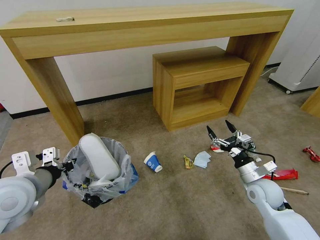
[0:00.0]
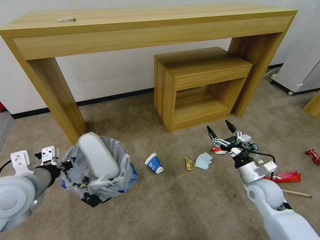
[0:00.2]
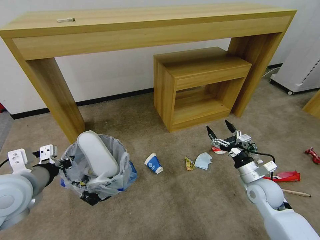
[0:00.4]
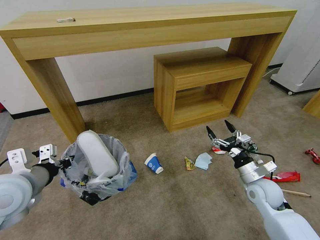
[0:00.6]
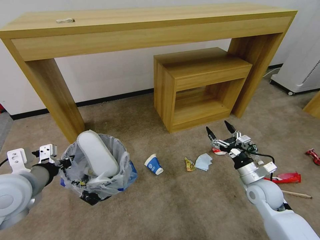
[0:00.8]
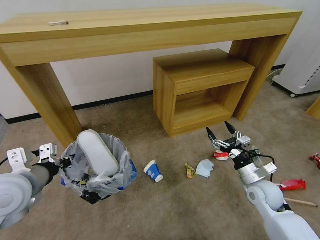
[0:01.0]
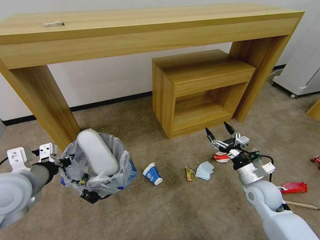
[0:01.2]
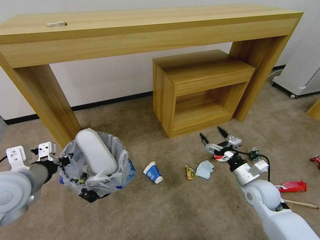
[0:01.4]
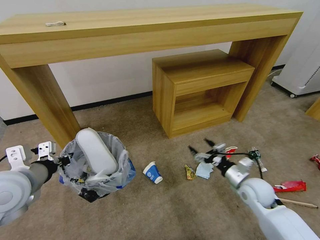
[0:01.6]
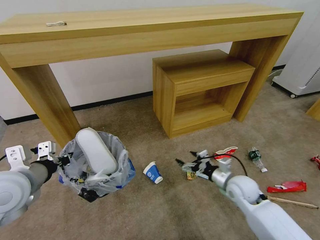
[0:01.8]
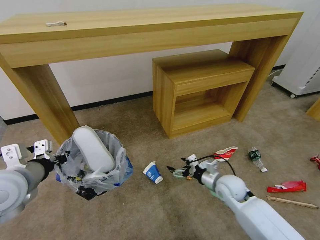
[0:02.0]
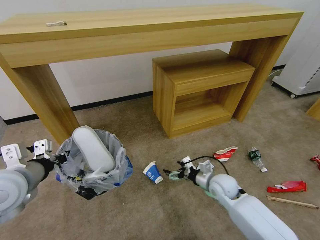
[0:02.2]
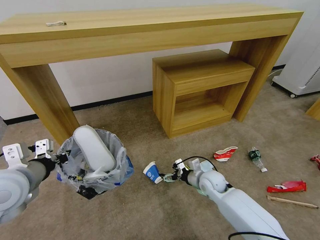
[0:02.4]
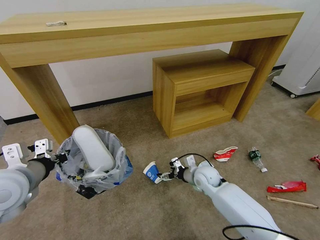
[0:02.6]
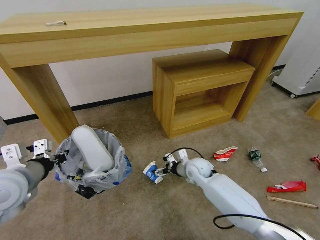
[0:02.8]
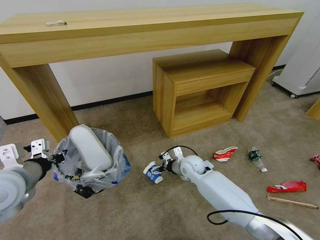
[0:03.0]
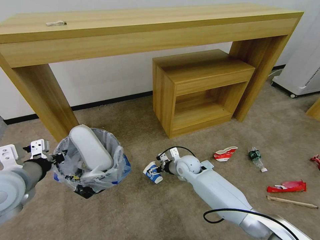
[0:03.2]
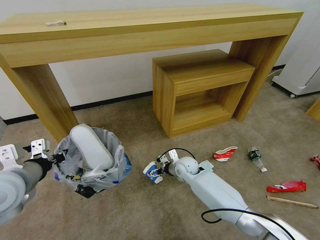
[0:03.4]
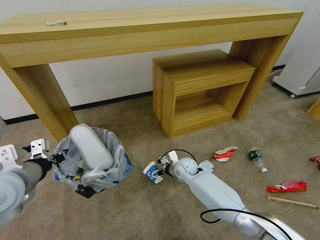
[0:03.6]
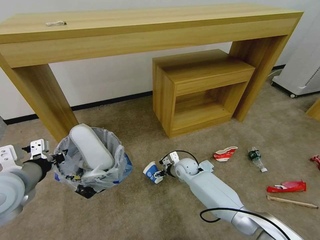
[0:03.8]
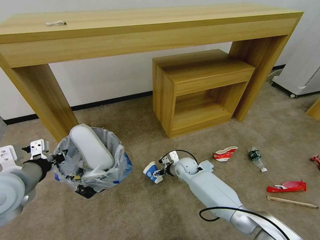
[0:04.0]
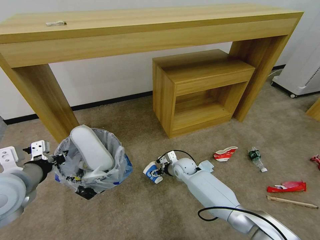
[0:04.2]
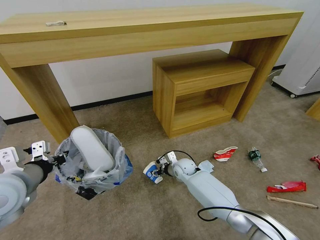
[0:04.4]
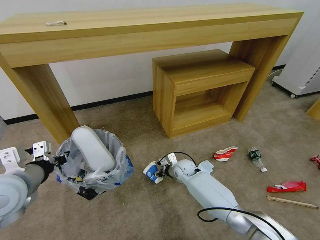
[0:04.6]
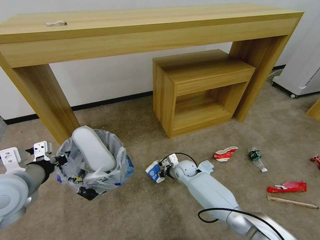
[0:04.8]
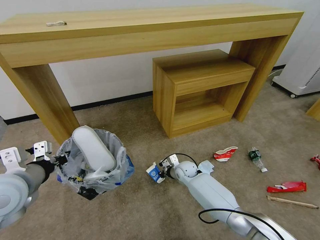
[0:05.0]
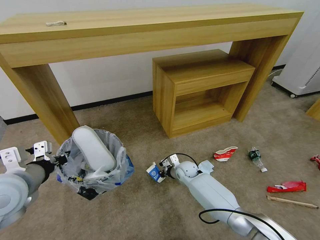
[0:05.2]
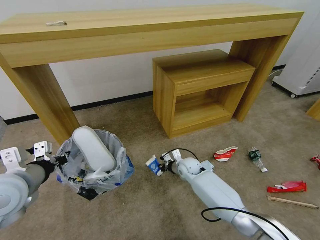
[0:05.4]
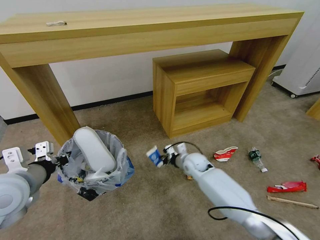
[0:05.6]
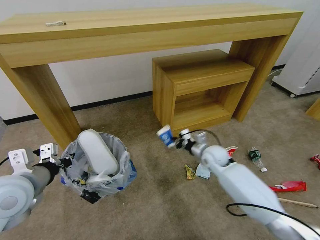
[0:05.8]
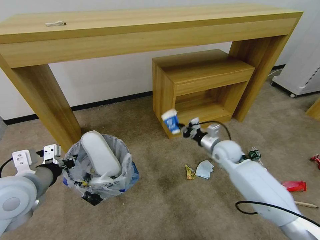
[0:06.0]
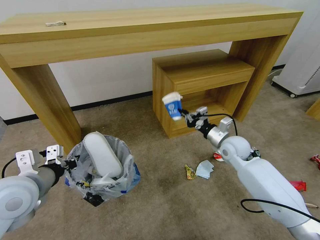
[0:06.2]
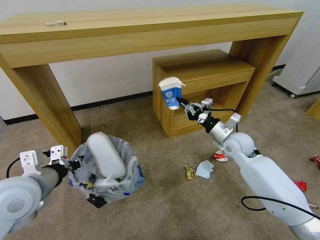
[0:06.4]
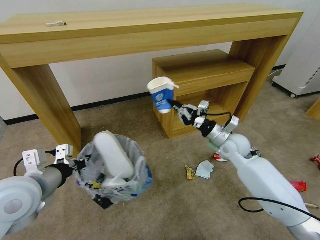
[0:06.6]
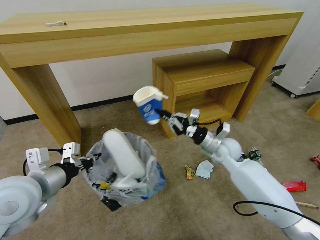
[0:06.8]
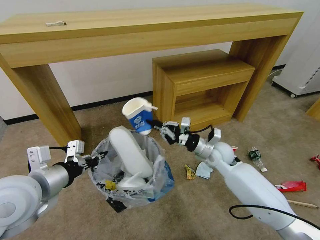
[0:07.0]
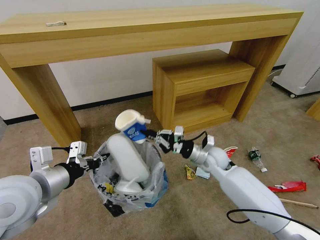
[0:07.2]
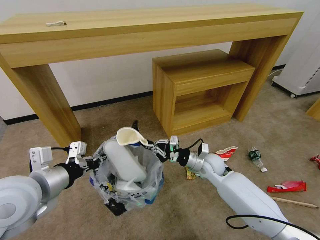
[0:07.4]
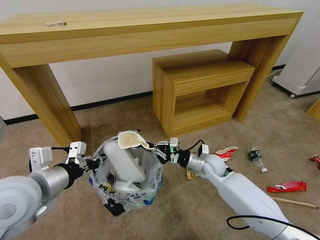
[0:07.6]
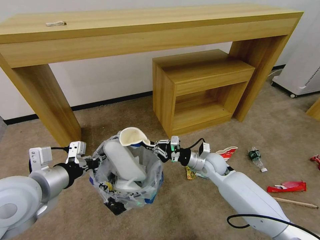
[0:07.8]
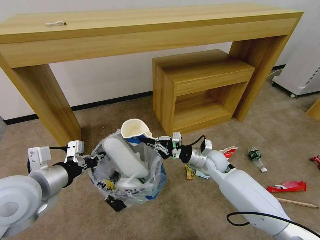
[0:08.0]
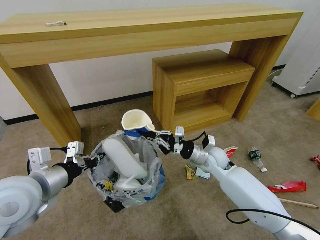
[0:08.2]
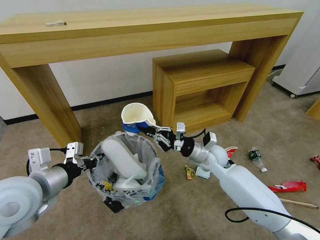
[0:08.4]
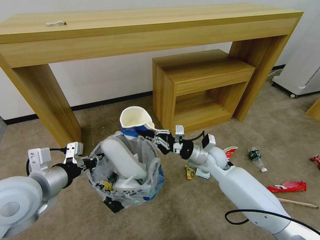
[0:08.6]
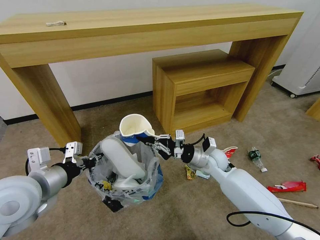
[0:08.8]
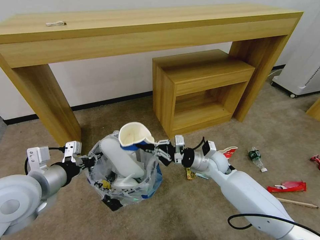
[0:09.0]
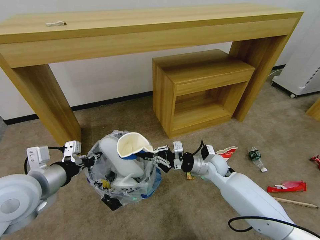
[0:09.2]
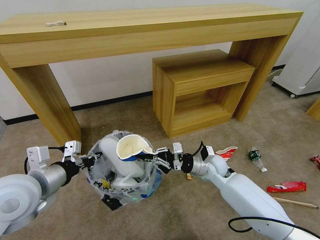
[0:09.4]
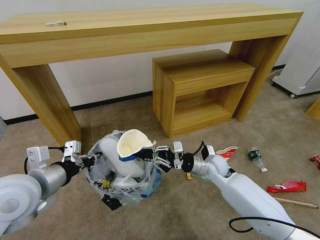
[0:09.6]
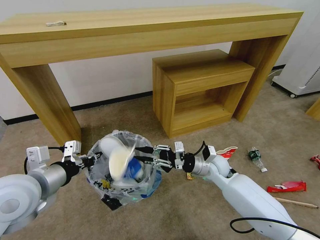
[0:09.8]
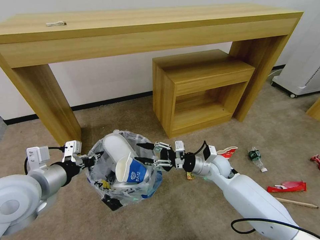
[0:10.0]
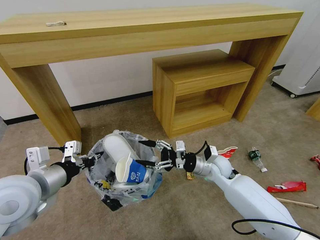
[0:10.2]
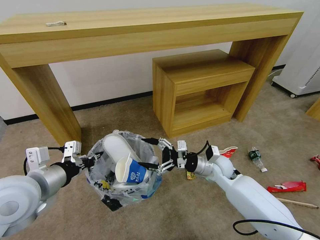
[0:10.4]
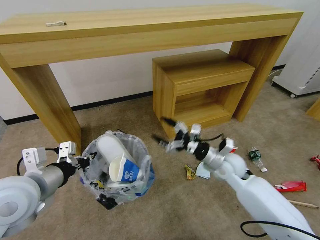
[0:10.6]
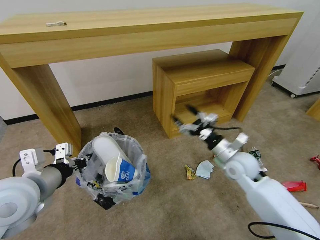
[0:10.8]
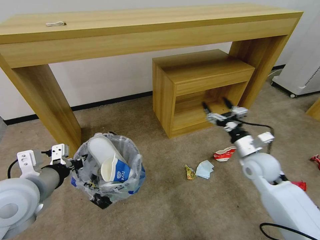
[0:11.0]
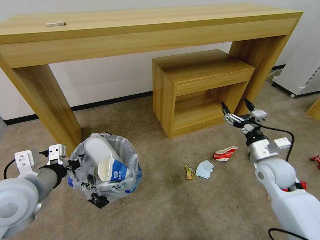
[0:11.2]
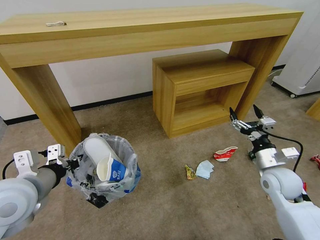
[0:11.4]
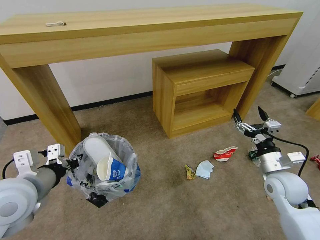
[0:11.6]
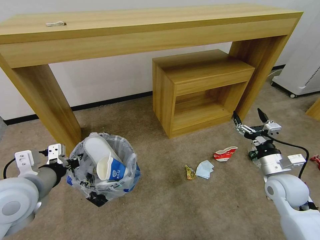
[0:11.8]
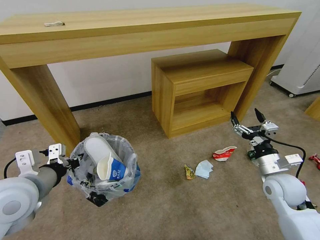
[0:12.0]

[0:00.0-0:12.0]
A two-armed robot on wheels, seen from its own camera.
Task of the whole recording: Pick up the trash bin and place the garbage on the floor into it.
0:01.6 to 0:03.0: The right gripper travels to the left and forward by some 25 cm.
0:03.0 to 0:04.4: The right gripper moves downward, approximately 5 cm.
0:04.4 to 0:06.0: The right gripper heads upward and to the right, covering about 20 cm, and closes its fingers.
0:06.0 to 0:07.6: The right gripper goes approximately 5 cm to the left.
0:07.6 to 0:09.0: The grippers stay close to where they were, moving slightly.
0:09.0 to 0:10.4: The right gripper opens.
0:10.4 to 0:12.0: The right gripper shifts roughly 20 cm to the right and backward.

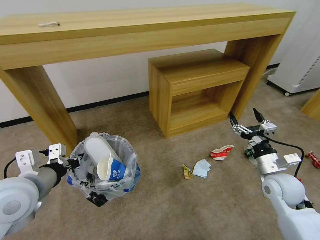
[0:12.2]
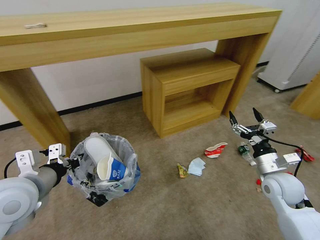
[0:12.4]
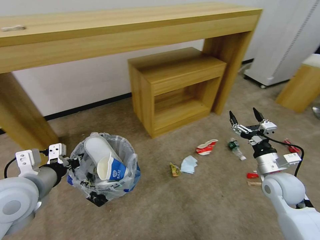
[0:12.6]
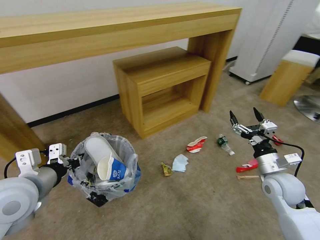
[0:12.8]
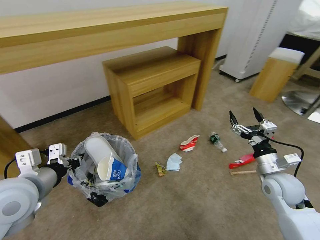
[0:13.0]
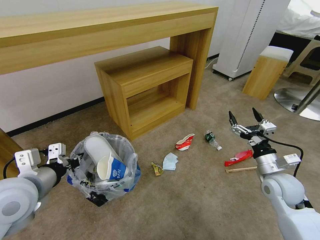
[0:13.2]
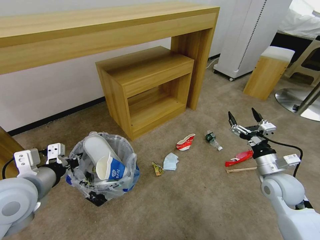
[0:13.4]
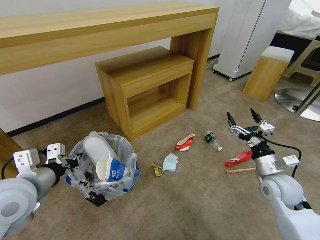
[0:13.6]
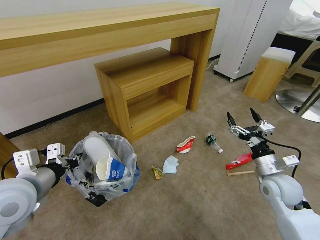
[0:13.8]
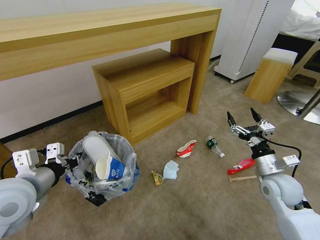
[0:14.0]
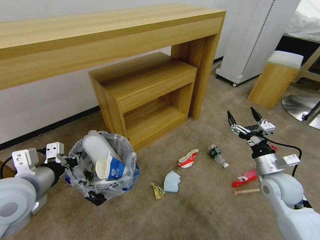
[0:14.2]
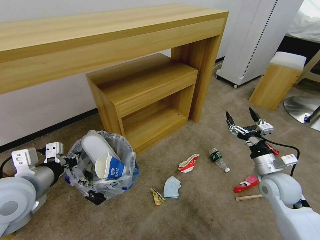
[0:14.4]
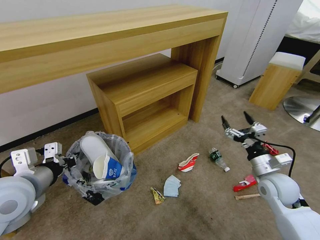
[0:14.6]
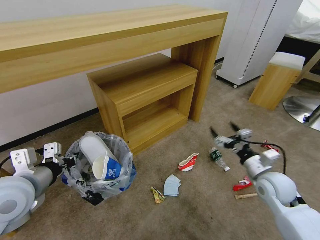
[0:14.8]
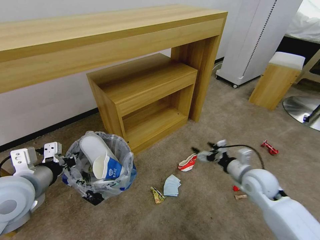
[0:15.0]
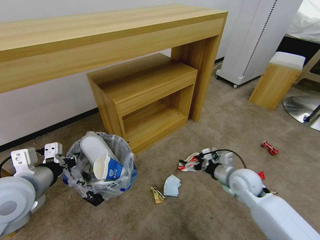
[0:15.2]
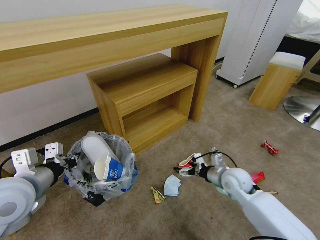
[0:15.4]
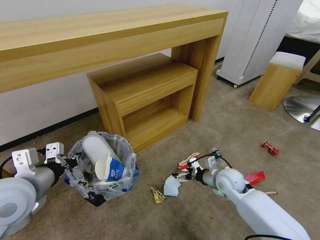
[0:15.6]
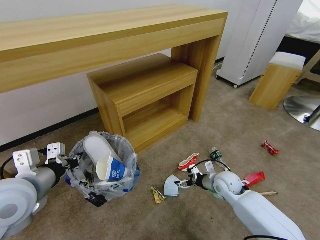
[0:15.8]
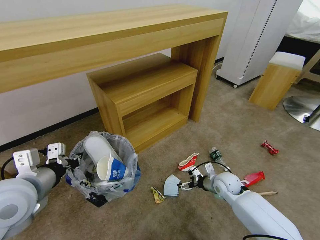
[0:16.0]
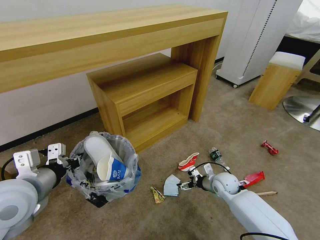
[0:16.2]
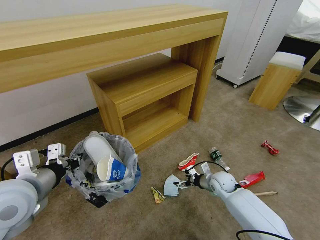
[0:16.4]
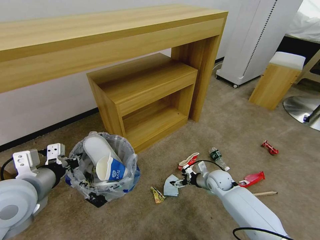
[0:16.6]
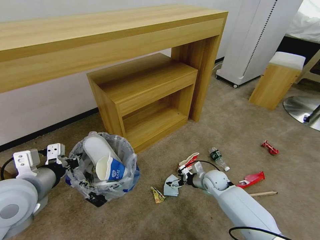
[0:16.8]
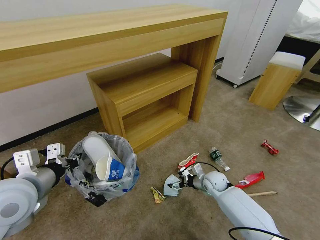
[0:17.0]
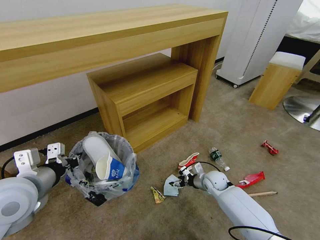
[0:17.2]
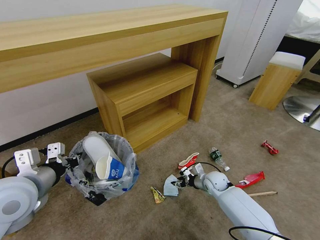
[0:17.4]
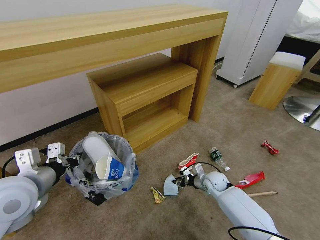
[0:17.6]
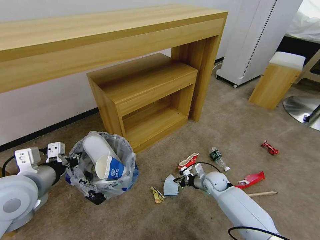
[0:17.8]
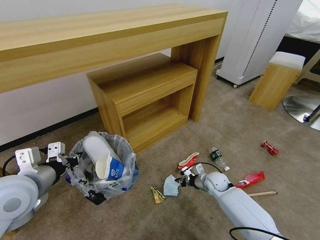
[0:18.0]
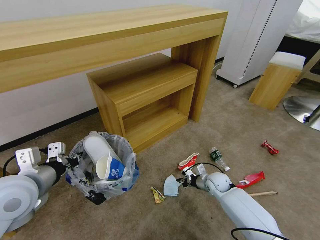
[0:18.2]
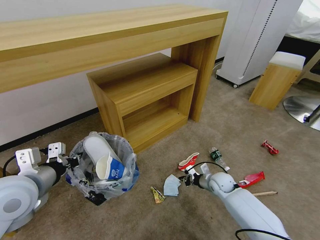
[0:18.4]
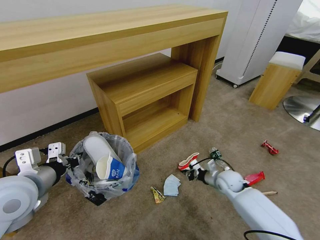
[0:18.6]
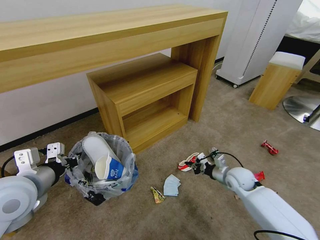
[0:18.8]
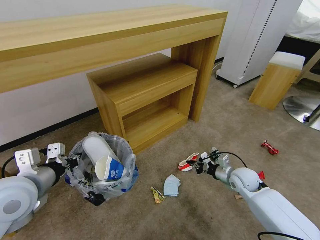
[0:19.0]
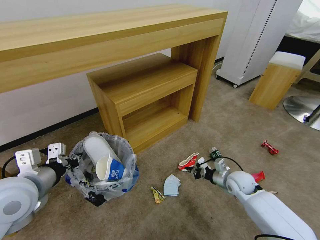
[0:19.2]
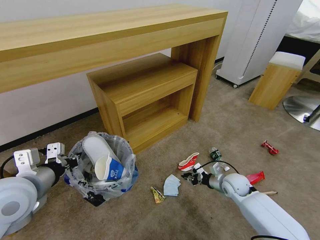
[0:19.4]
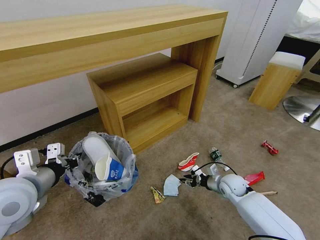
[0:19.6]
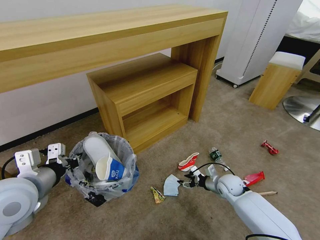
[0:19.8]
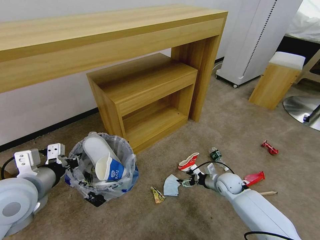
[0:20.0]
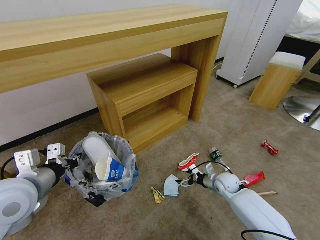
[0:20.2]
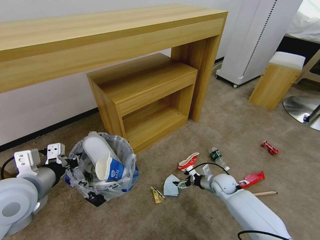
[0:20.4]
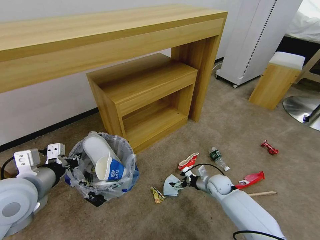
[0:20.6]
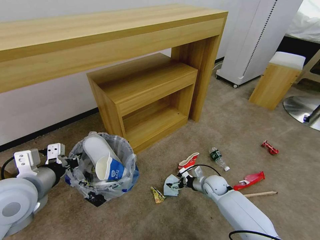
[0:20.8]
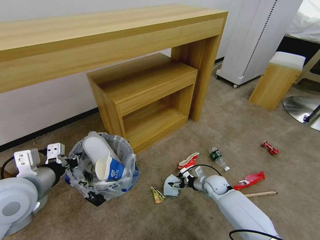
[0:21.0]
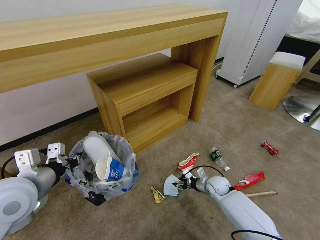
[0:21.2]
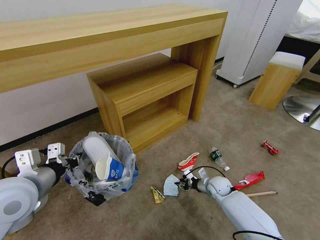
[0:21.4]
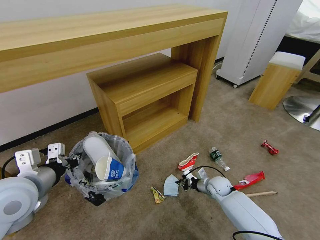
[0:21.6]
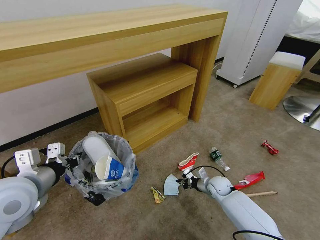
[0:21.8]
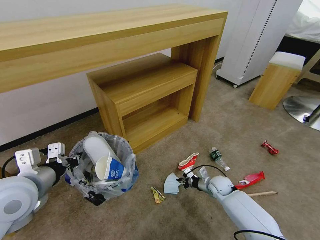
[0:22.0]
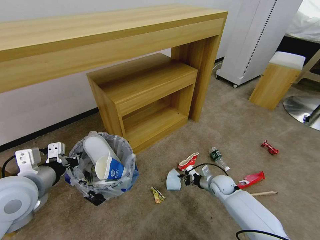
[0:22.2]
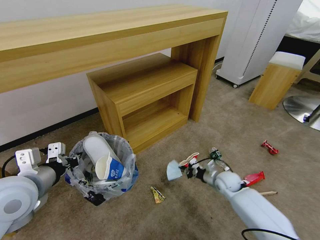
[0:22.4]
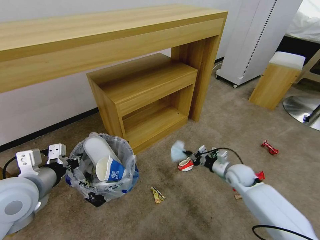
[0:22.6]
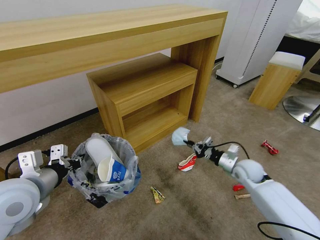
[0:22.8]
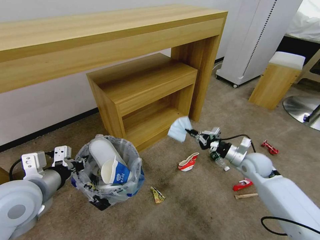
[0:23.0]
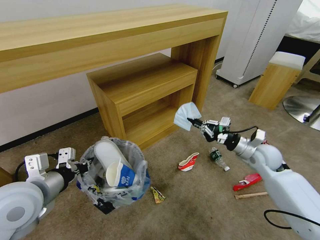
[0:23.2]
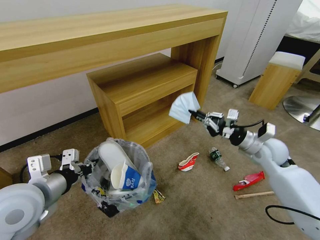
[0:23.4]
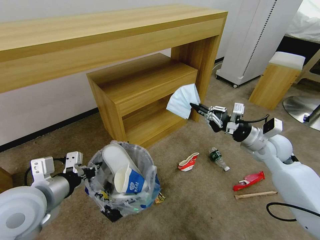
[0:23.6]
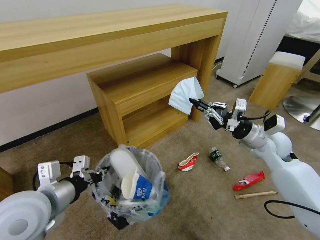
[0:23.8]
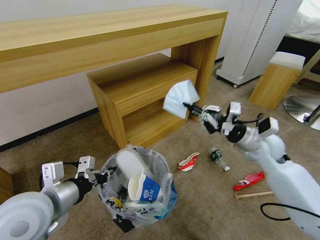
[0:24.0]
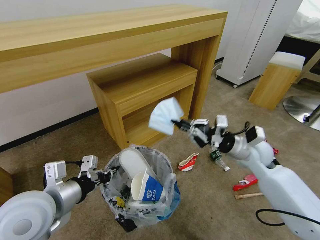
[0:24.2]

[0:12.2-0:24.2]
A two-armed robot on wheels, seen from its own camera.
Task of the whole recording: Pick up the trash bin and place the garbage on the floor into it.
0:13.8 to 0:15.2: The right gripper is displaced to the left by some 5 cm.
0:15.2 to 0:16.6: The right gripper is displaced downward and forward by some 15 cm.
0:16.6 to 0:18.2: The right gripper closes its fingers.
0:18.2 to 0:19.8: The right gripper reaches some 10 cm upward, then returns, and opens.
0:19.8 to 0:21.2: The right gripper moves roughly 5 cm, and opens, then closes once more.
0:21.2 to 0:22.6: The right gripper heads upward and to the right, covering some 10 cm, and closes its fingers.
0:22.6 to 0:24.2: The right gripper heads upward, covering roughly 15 cm. Meanwhile the left gripper is displaced to the right by about 5 cm.
